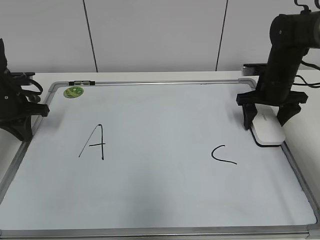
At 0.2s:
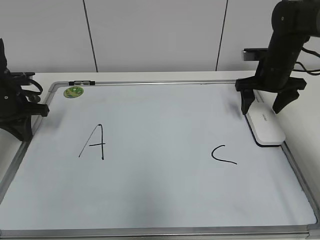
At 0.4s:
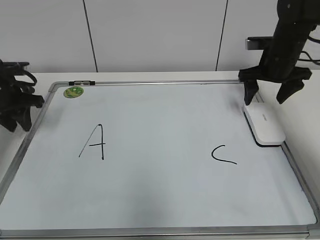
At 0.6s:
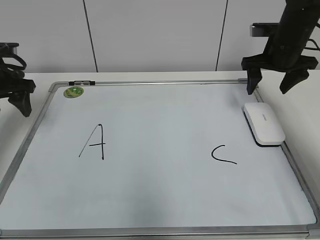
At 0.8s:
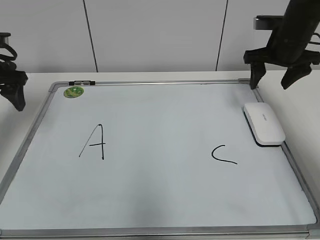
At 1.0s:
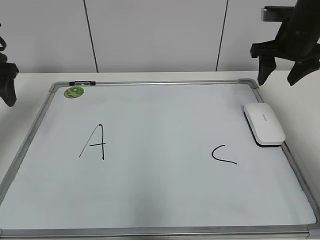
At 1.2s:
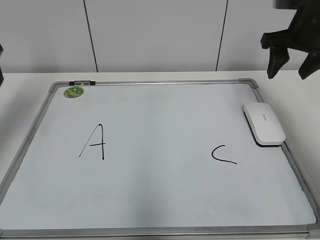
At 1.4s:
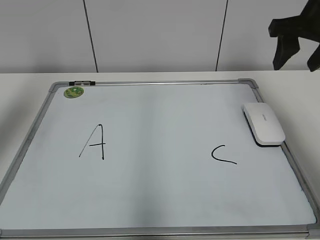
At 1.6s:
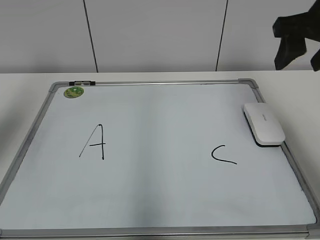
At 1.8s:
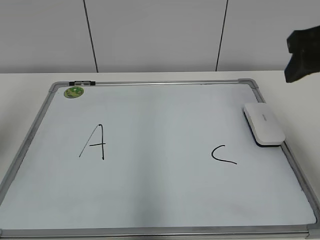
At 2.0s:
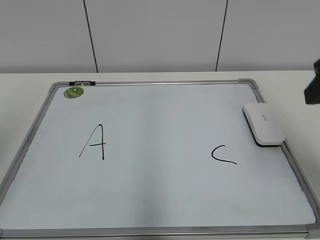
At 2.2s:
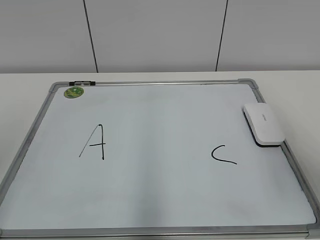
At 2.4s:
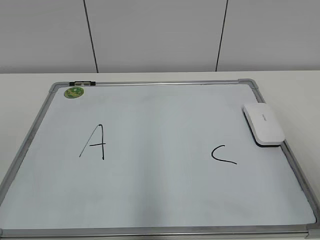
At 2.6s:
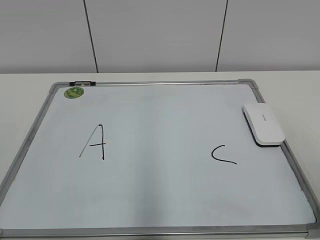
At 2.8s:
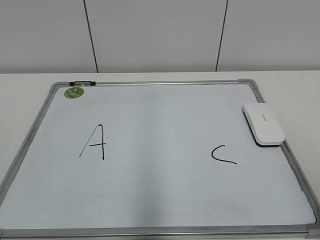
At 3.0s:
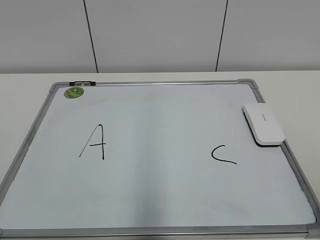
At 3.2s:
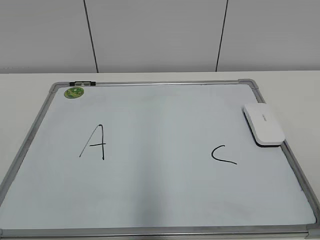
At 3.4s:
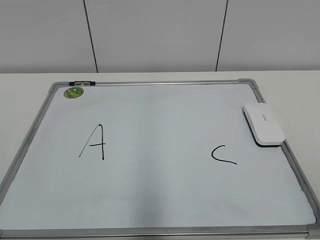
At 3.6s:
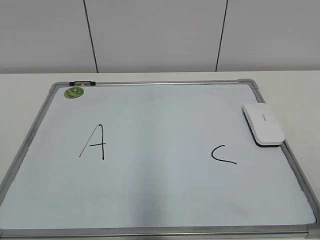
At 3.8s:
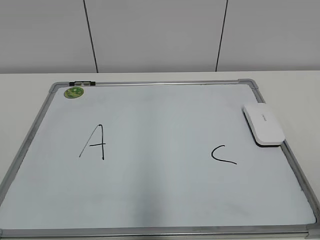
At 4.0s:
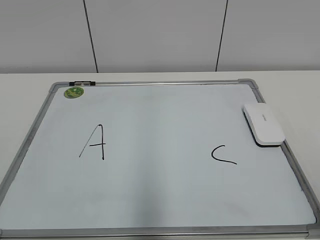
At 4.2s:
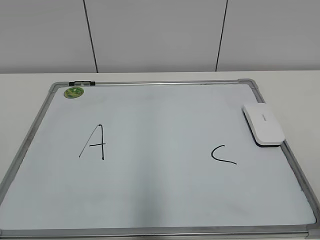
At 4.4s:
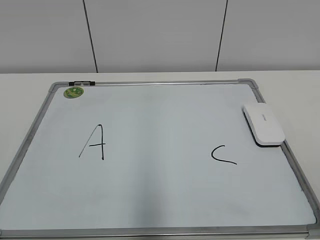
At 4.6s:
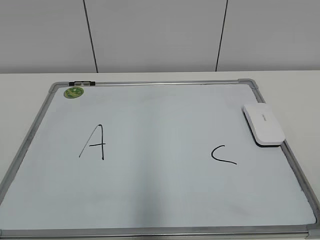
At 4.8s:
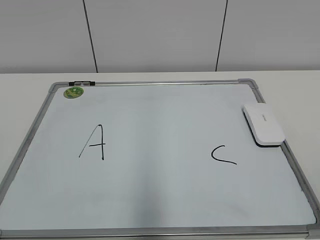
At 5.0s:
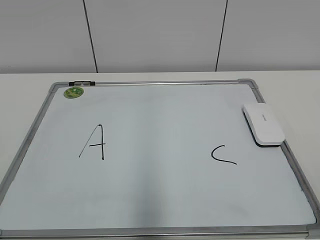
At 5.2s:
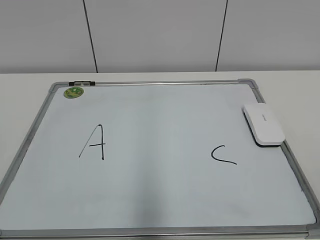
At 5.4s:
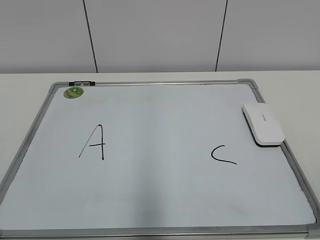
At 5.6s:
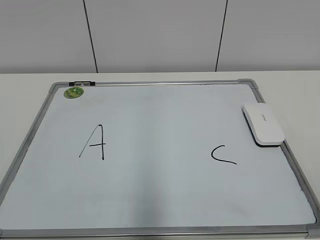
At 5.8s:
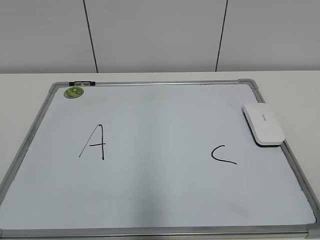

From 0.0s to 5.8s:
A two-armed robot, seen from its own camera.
Task of the whole recording: pick up the eraser on the blackboard and erase the letter "B".
From 0.0s to 1.4s: Both grippers travel together upward and backward, about 20 cm. The left gripper opens. The right gripper closes its fingers.
From 1.4s to 2.8s: Both grippers move backward, some 30 cm.

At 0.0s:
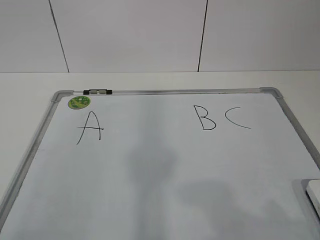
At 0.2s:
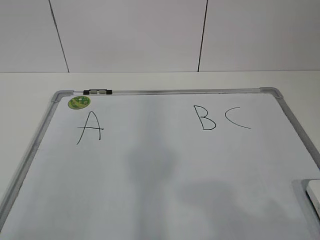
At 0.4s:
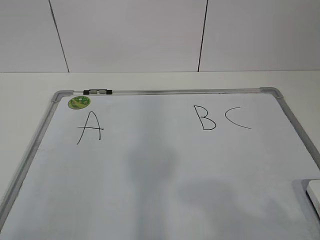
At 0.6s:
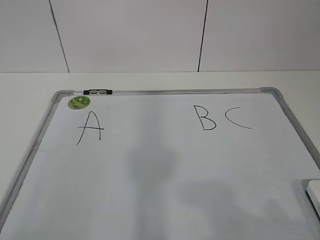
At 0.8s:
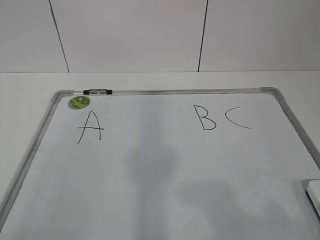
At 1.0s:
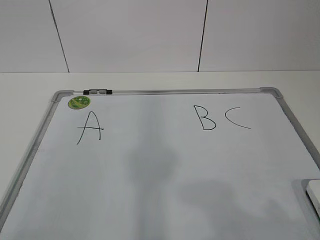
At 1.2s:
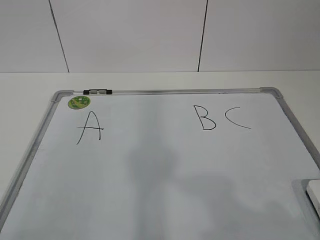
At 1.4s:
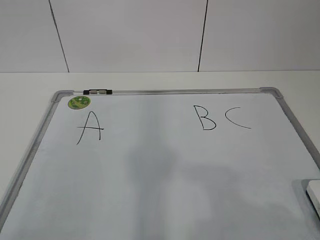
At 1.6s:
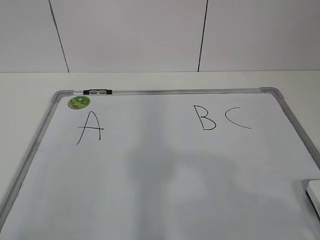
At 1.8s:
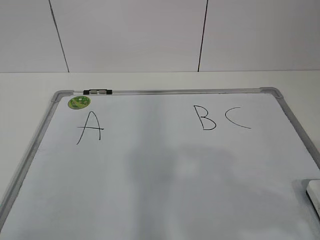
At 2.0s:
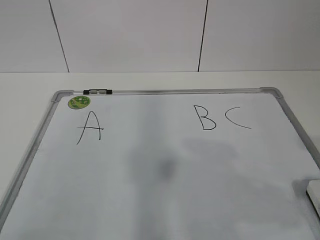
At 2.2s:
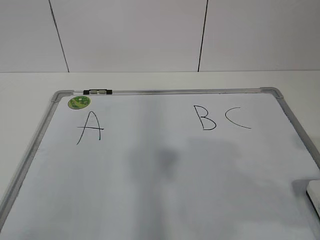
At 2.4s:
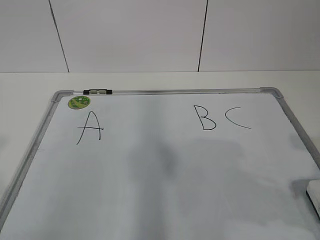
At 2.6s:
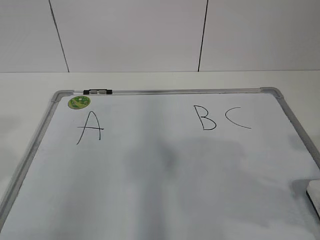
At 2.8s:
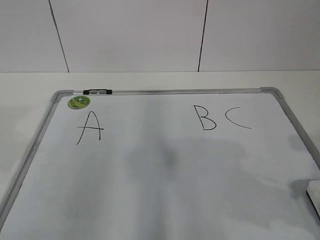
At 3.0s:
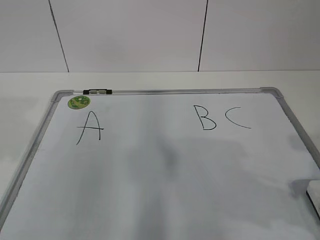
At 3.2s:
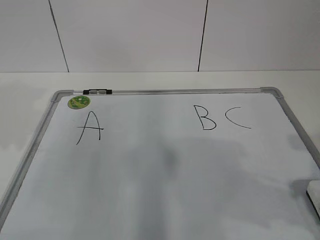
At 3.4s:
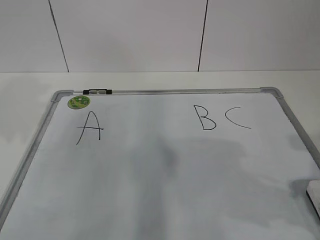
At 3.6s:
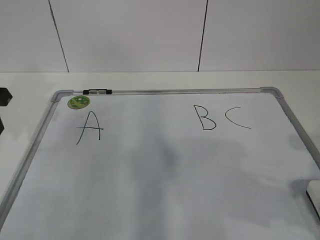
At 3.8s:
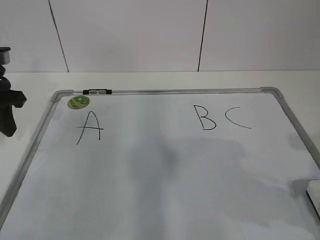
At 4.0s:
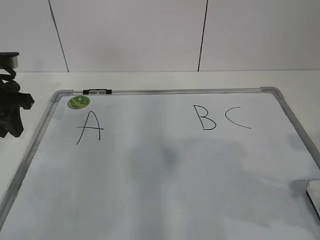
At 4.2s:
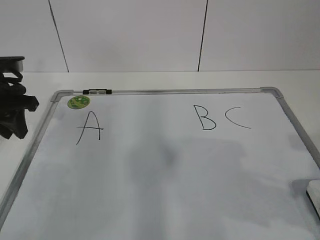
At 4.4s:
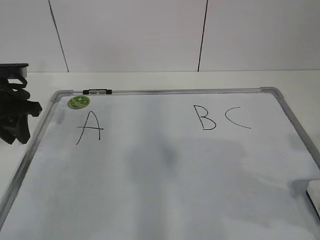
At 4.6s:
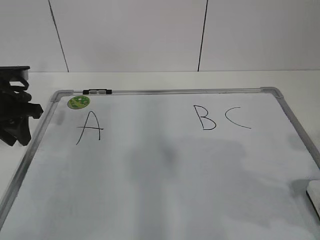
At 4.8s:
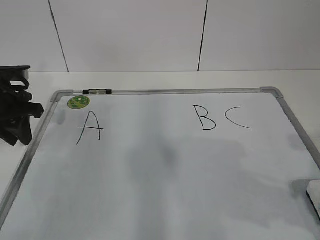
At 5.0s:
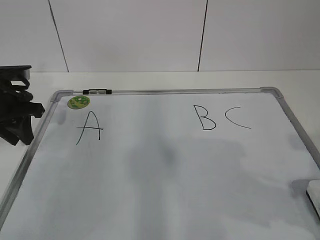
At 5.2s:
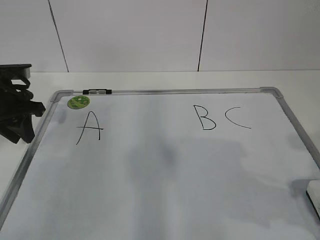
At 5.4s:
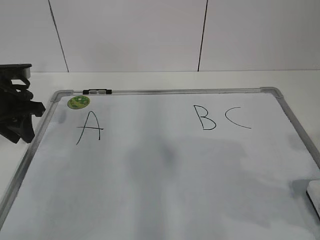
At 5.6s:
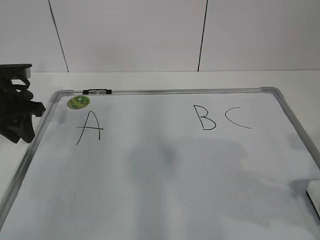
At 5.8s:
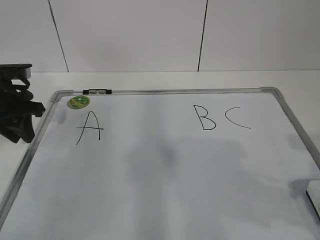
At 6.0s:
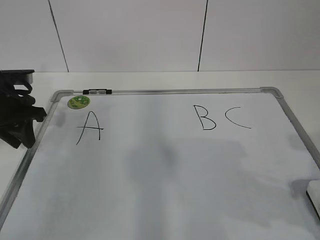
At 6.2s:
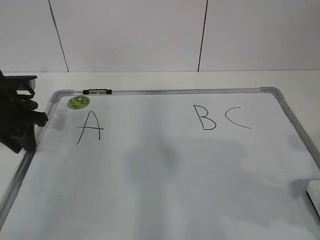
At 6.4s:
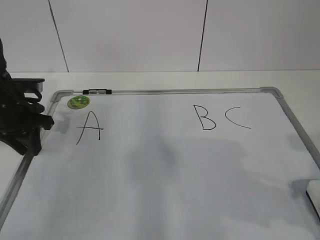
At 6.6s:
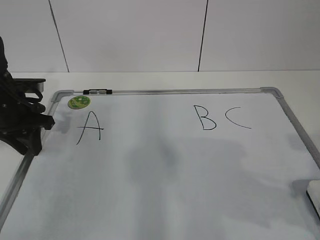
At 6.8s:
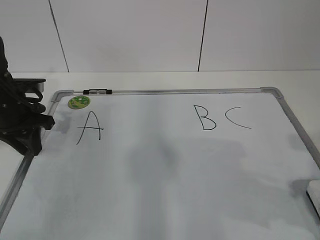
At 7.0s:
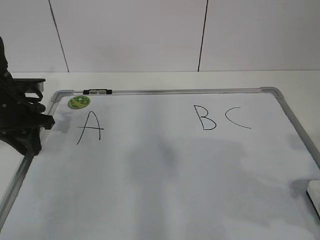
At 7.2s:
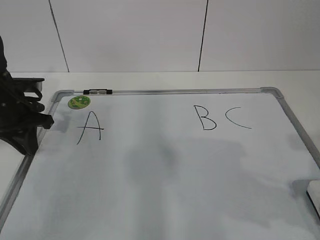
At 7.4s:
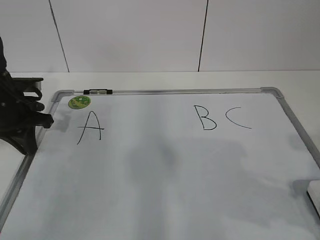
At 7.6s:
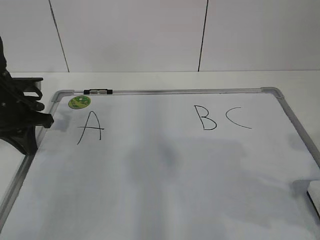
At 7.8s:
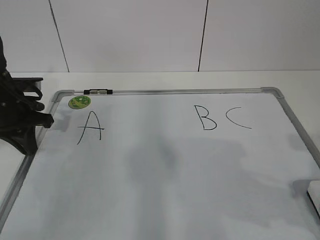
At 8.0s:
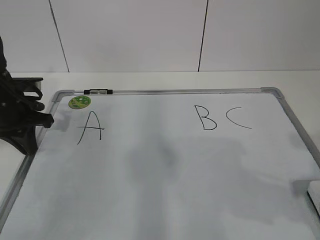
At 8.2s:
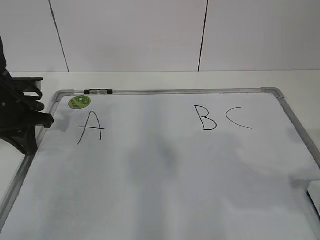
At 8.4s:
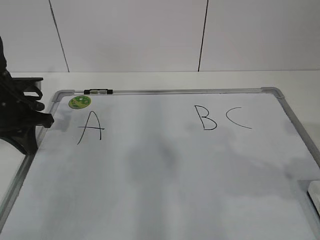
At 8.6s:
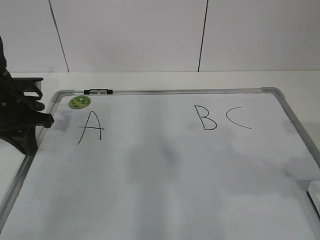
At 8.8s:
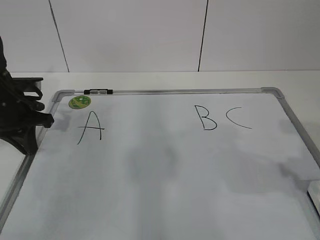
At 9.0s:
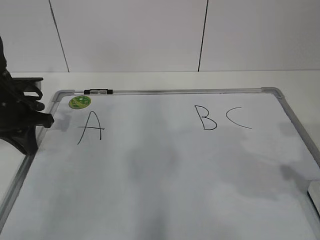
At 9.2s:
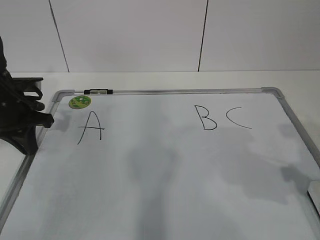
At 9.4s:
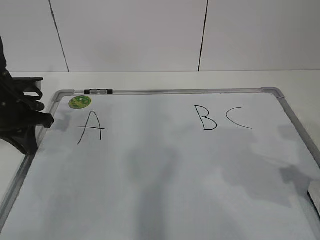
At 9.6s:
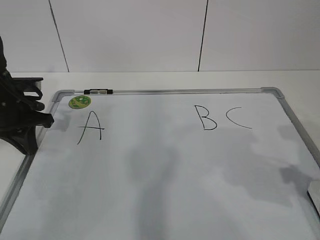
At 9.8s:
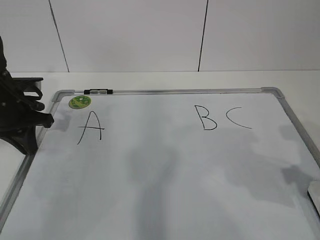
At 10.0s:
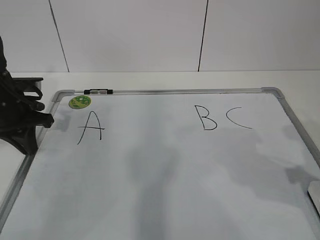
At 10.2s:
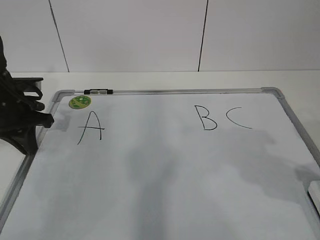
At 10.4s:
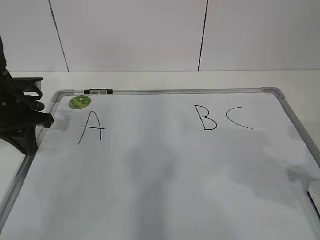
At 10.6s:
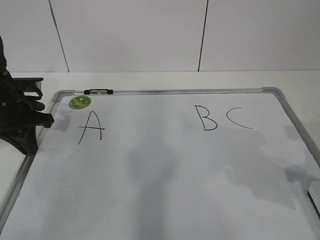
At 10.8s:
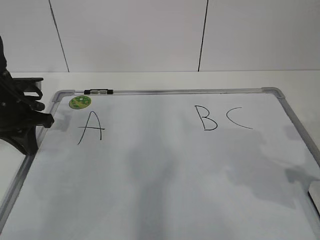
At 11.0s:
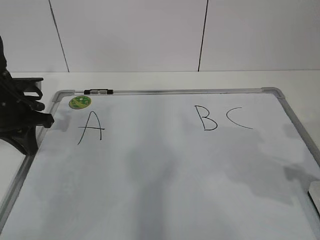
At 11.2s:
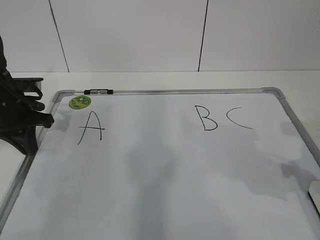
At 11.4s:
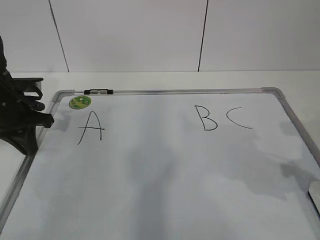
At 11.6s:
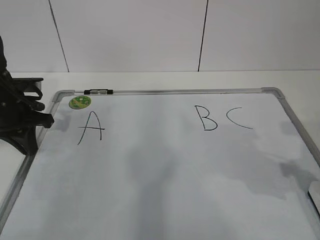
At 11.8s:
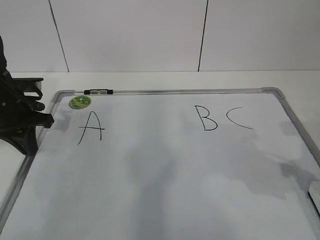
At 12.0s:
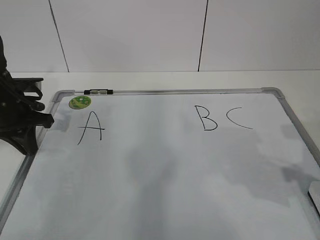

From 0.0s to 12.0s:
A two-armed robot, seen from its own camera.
Task of the whole recording: pick up the eraser on the blackboard and erase the letter "B".
Step, from 0.0s to 6.0s: Hold the drawing board steady with your left hand.
Step, from 6.2s to 11.6s: Grab the eraser with your right hand.
From 3.0s to 4.4s: The left gripper is displaced forward and downward by roughly 25 cm.
From 4.4s to 6.0s: The grippers stay close to where they were, moving slightly.
From 6.0s to 7.6s: The left gripper closes.

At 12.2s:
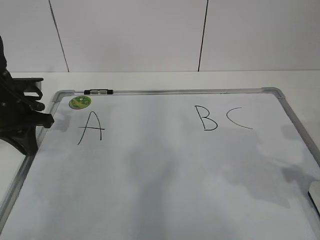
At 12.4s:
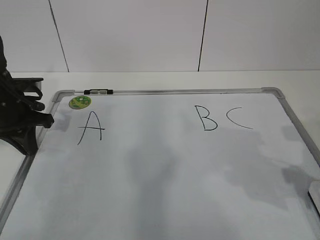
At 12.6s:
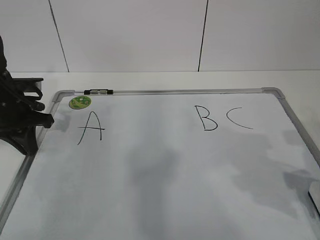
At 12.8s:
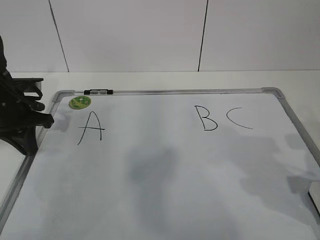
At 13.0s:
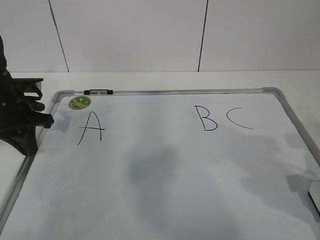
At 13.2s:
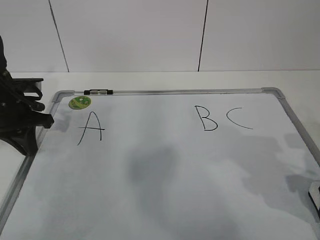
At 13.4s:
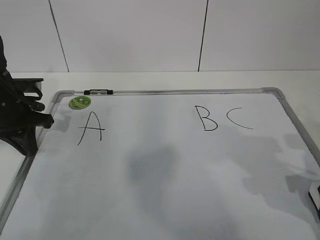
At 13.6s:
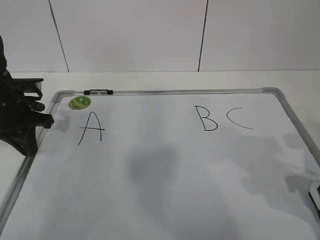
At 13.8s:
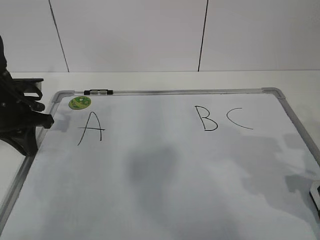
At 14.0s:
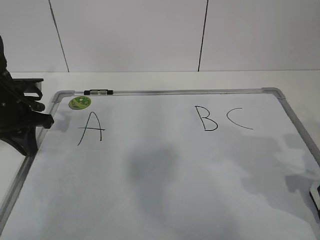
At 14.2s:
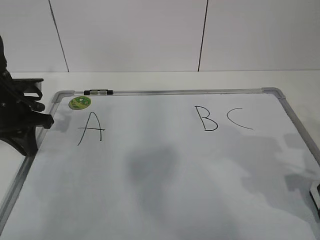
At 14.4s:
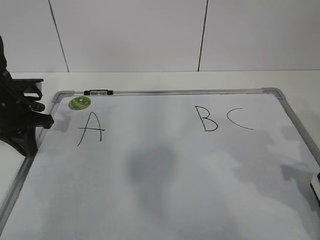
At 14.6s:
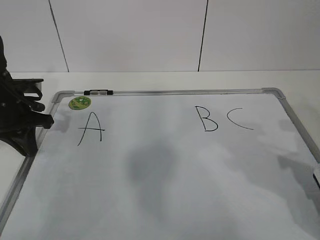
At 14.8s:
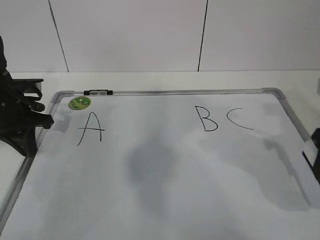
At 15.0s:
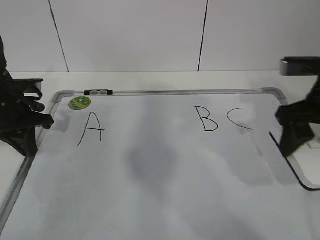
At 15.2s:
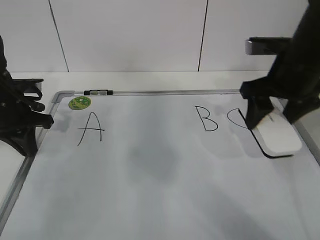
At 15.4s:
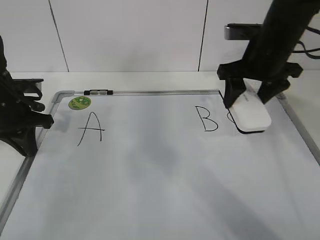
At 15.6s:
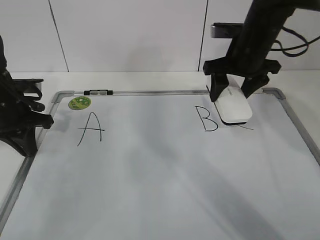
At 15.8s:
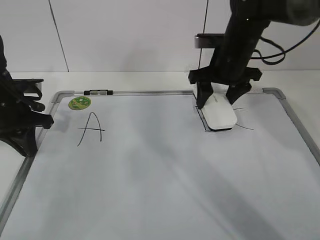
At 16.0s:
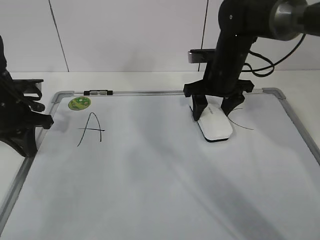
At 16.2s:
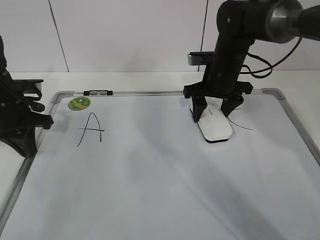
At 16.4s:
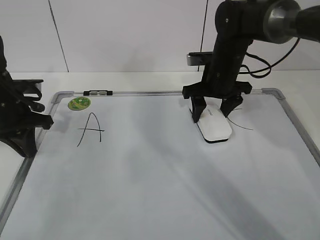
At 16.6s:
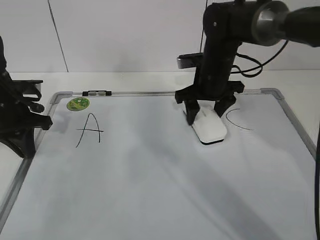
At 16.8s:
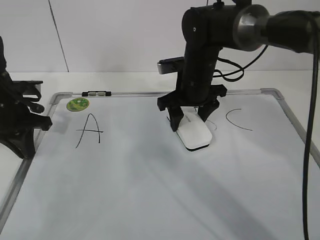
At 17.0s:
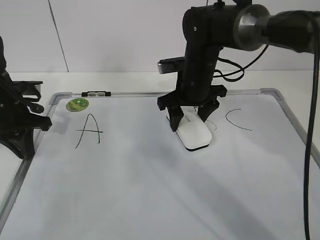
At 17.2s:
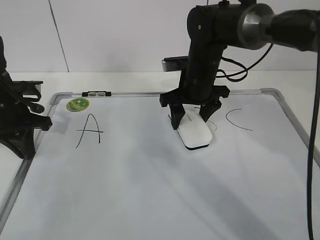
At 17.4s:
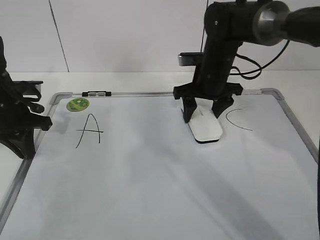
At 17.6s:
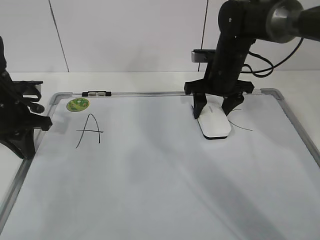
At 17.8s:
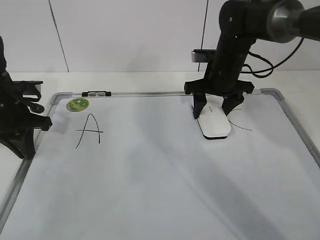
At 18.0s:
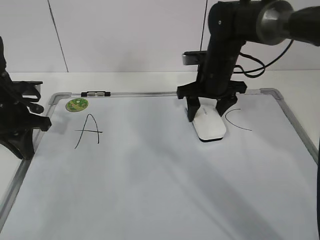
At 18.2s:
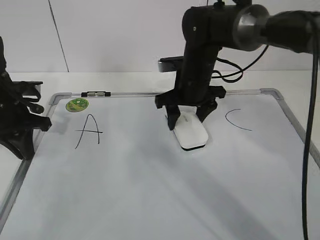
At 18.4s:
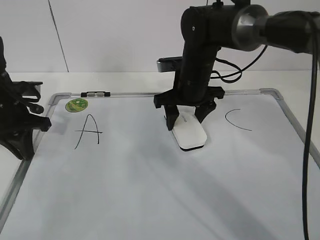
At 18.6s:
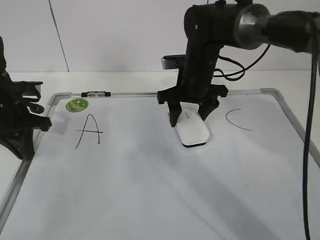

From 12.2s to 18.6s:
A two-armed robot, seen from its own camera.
Task of the whole recording: pick up the eraser on the blackboard and erase the letter "B".
Step, from 12.2s to 16.6s: Erase the letter B with your right hand.
From 13.8s to 15.4s: The right gripper is displaced forward, to the left and upward by roughly 20 cm.
From 15.4s to 17.0s: The right gripper travels to the left and downward by about 15 cm.
